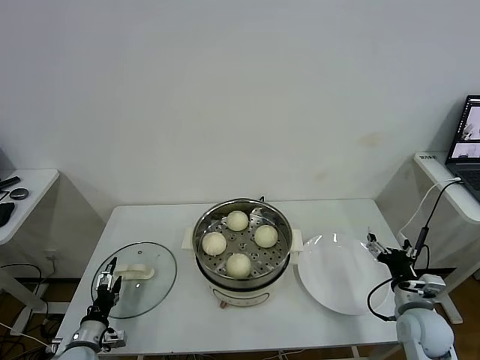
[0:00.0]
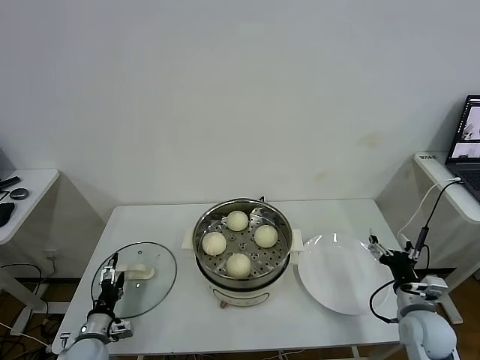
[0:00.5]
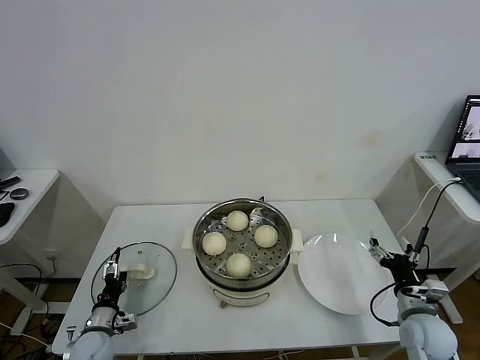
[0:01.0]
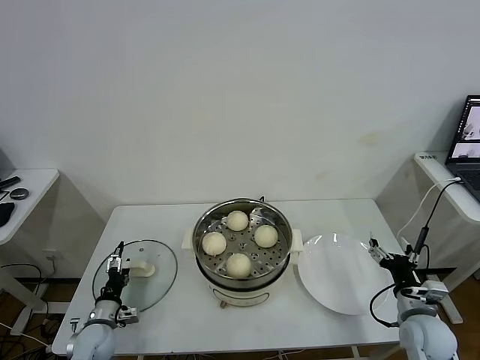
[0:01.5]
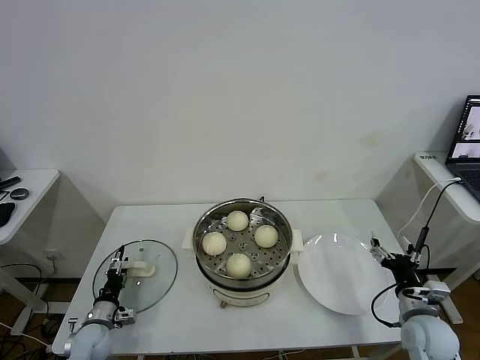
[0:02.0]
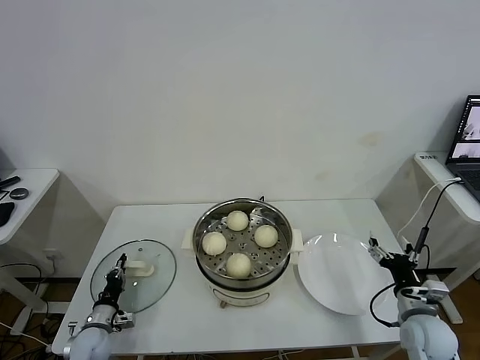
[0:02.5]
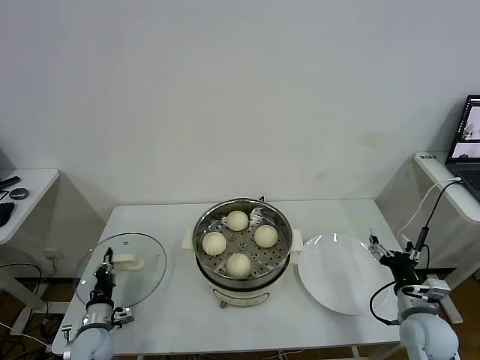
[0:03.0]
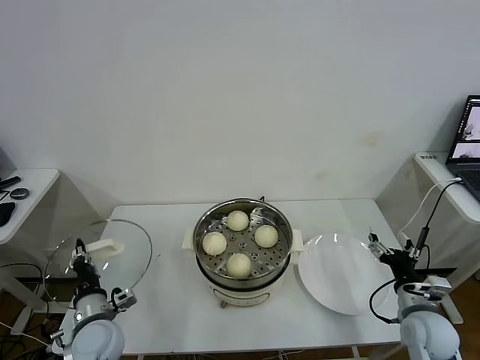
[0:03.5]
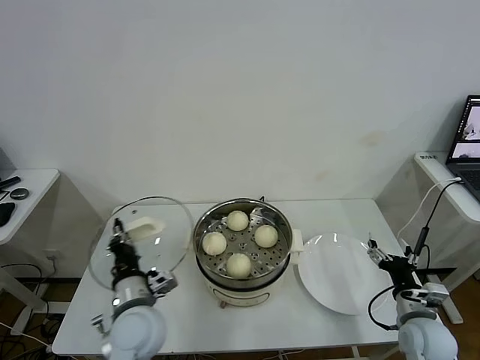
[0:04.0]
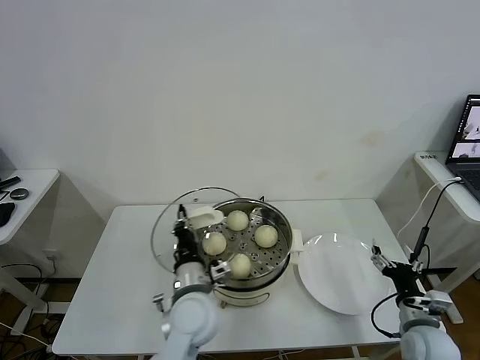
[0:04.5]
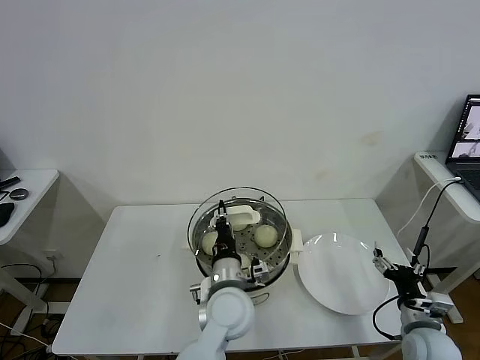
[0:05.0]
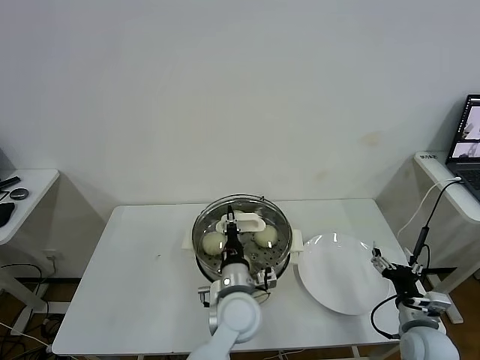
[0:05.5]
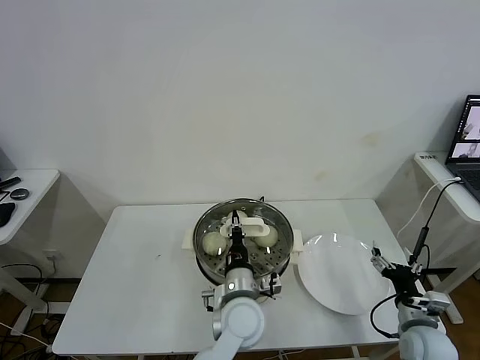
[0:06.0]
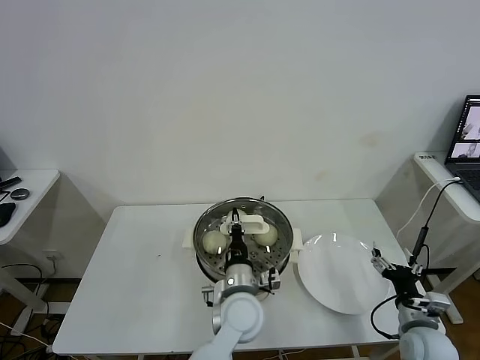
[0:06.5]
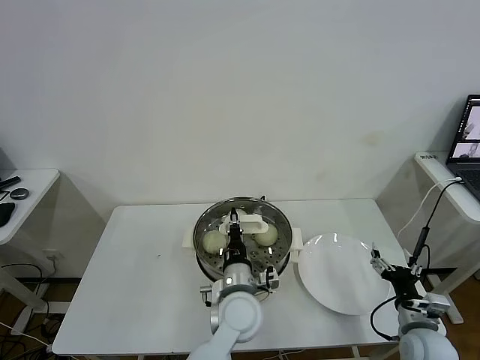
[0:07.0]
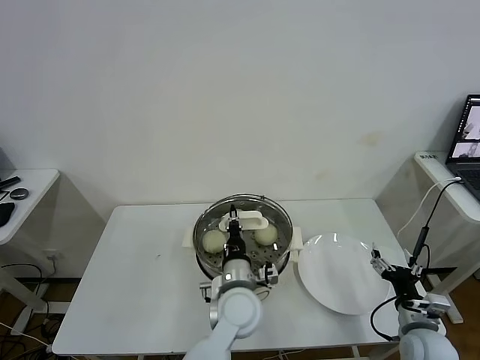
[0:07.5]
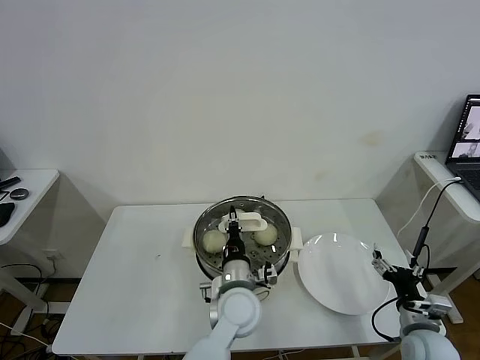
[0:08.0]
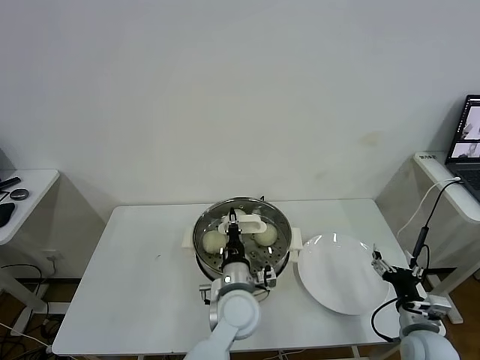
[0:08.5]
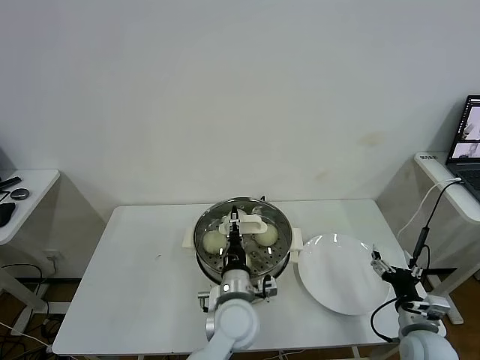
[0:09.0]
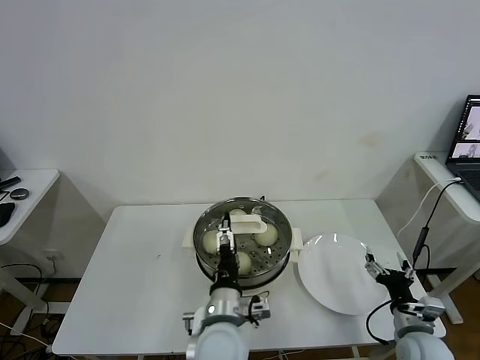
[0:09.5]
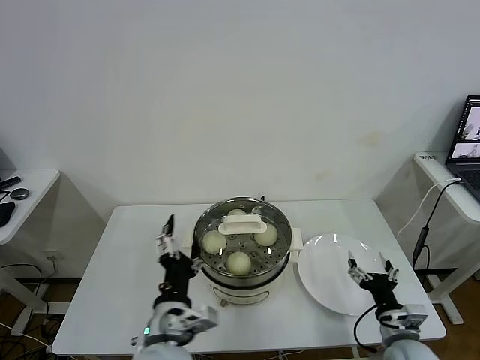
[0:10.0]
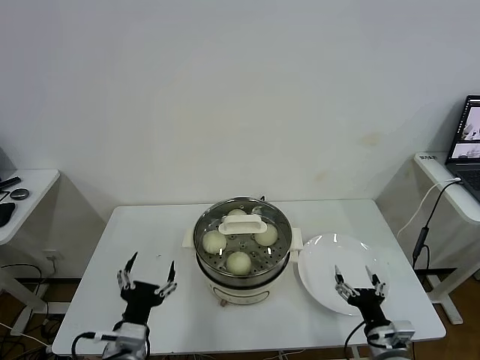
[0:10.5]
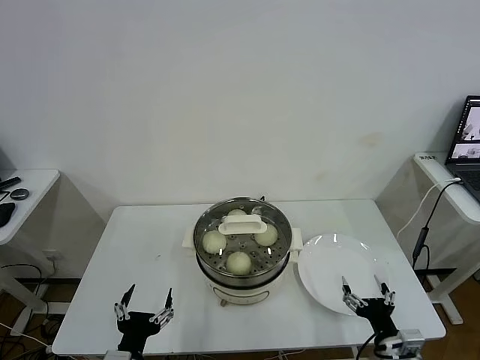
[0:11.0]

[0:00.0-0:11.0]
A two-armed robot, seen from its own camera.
Task of the whole recording: take steamed baozi put them in steamer.
Step, 0:00.0 to 0:02.5: Grasp the pot lid with left gripper.
Step, 0:03.5 to 0:09.5: Place the pot lid on the steamer with left gripper.
0:00.0 to 0:02.0: The left gripper shifts about 5 cm forward.
0:02.0 to 0:03.5: The left gripper heads upward and to the right, covering roughly 15 cm, and closes.
0:03.5 to 0:05.5: The left gripper moves to the right, about 30 cm.
0:05.5 to 0:07.5: Both grippers stay put.
0:07.5 to 0:09.0: The left gripper opens up.
0:09.0 to 0:11.0: The right gripper shifts some 10 cm backward and to the left. The left gripper heads to the left and backward, covering some 25 cm, and opens.

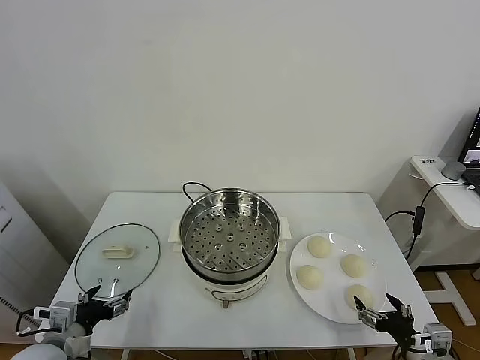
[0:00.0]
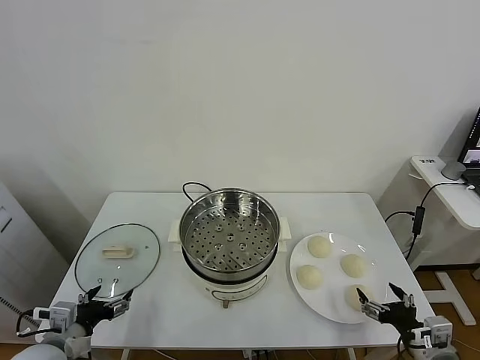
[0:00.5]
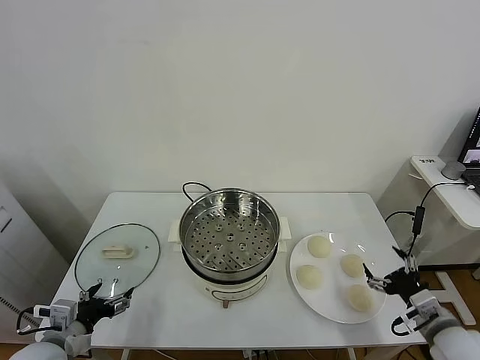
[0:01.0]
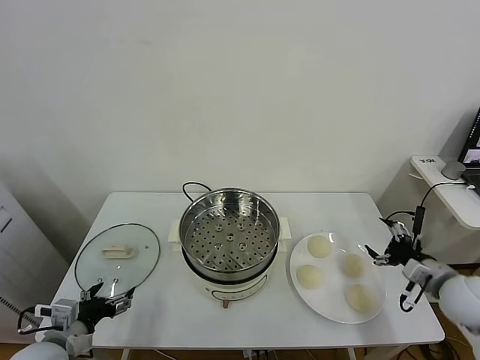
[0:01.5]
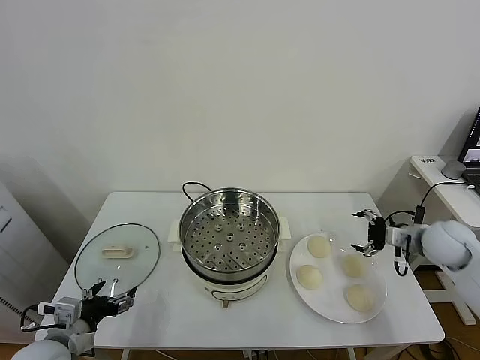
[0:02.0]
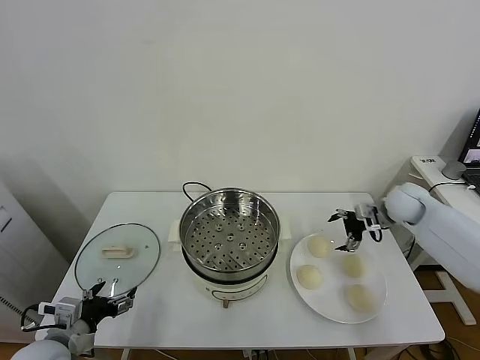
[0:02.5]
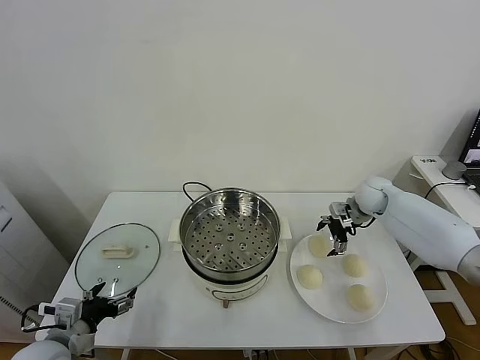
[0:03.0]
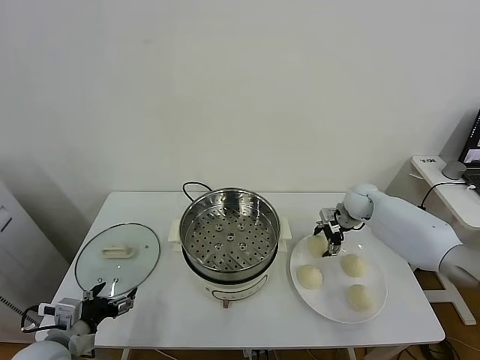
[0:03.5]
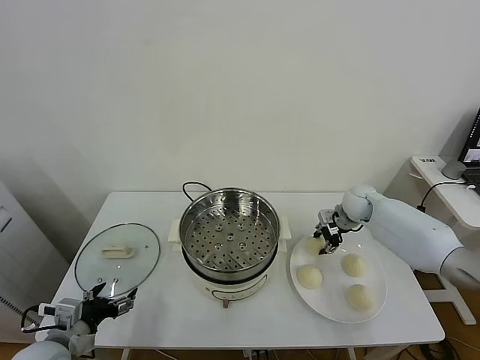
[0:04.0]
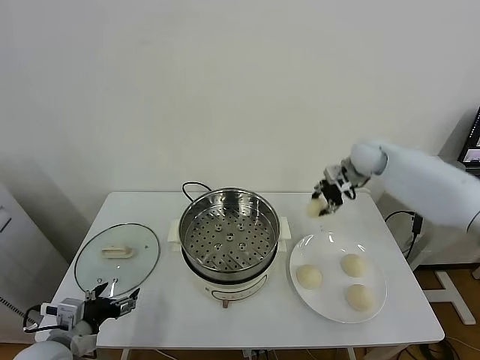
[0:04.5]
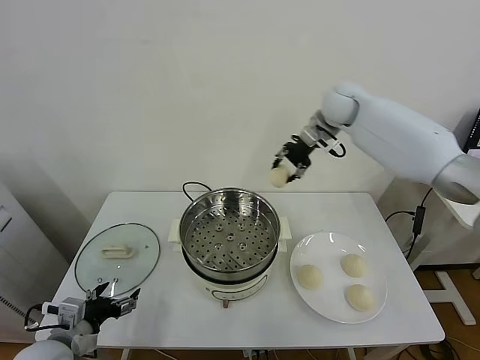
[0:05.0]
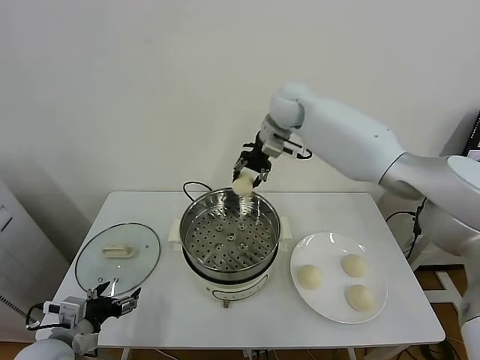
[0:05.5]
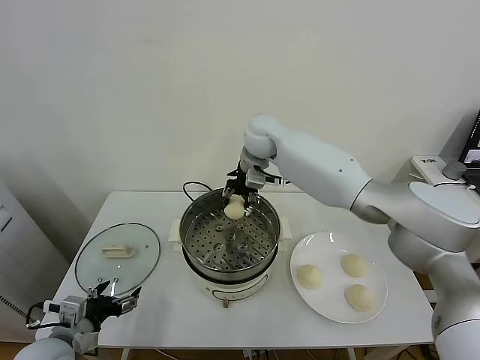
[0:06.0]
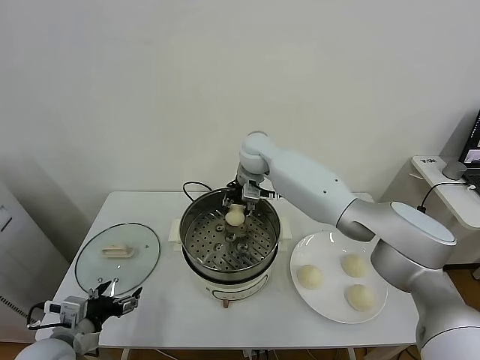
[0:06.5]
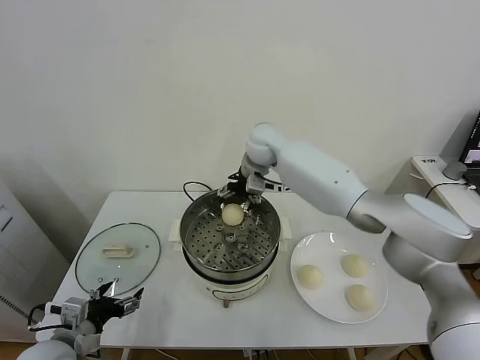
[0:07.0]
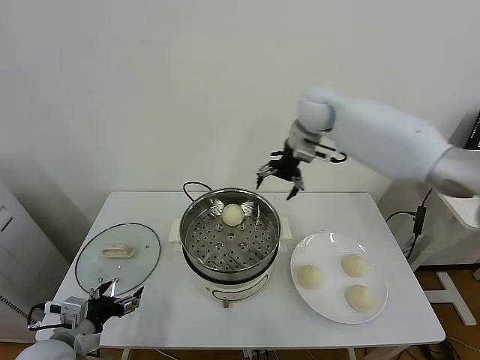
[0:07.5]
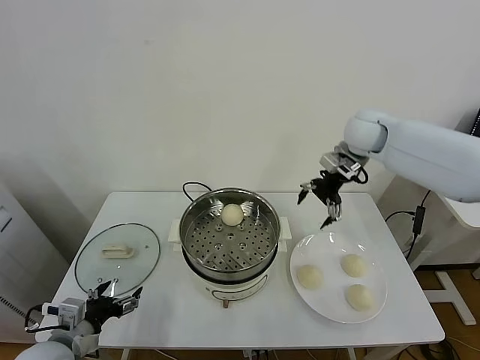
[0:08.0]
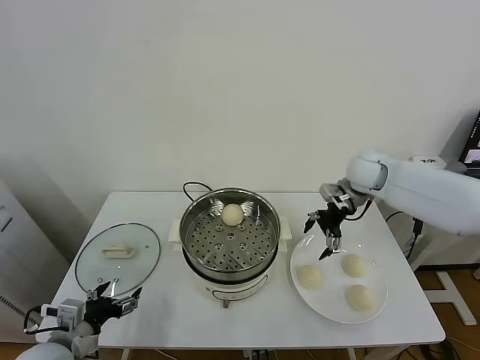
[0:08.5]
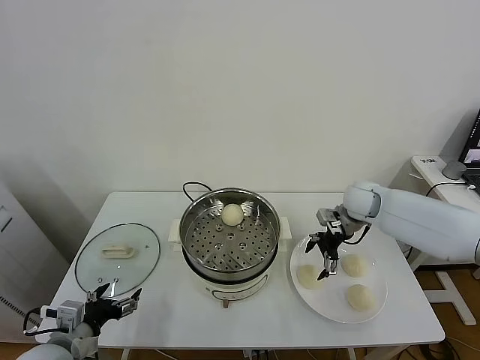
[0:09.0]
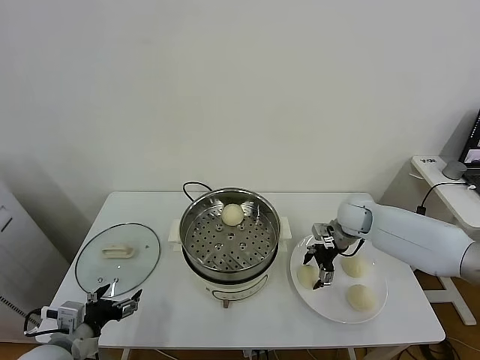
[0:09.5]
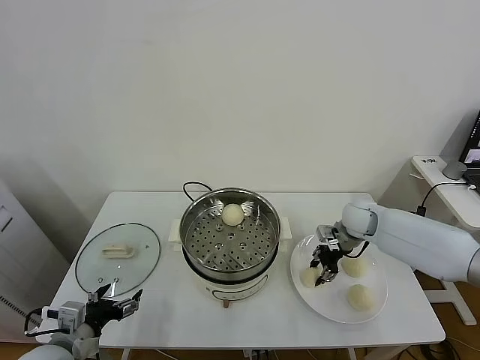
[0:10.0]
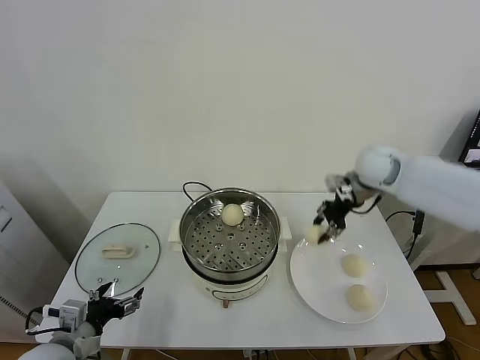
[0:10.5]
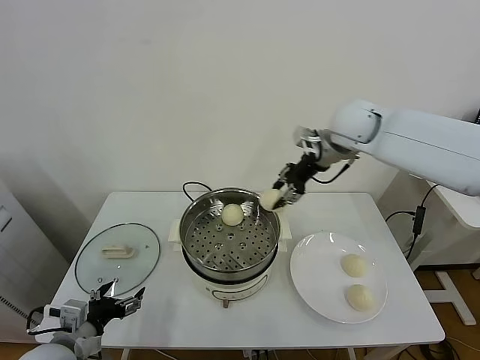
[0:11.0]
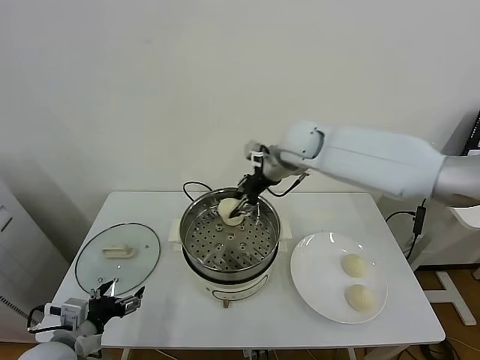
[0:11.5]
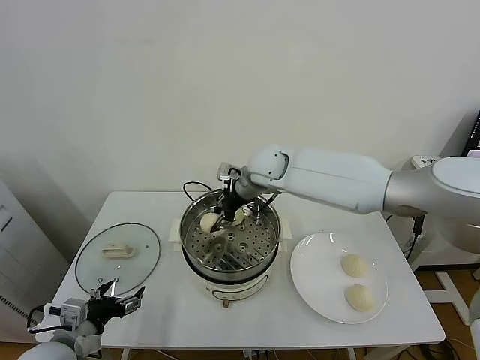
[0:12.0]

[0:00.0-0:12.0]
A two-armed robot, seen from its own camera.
Task of the whole recording: take steamed baozi put them in steamer.
Step, 0:00.0 to 0:03.5: Grasp the baozi in the plate with right gripper.
Step, 0:04.0 to 0:06.5: Place the baozi on the steamer with right gripper.
Step, 0:07.0 to 0:09.5: Grasp the baozi in the plate with right gripper.
0:02.0 to 0:04.0: The right gripper shifts about 20 cm forward and to the left, and closes.
0:04.0 to 0:06.0: The right gripper is displaced to the left and upward by roughly 35 cm.
0:06.0 to 0:08.0: The right gripper shifts about 25 cm to the right, and opens up.
0:08.0 to 0:10.0: The right gripper shifts about 20 cm downward, and closes its fingers.
0:10.0 to 0:12.0: The right gripper shifts about 30 cm to the left and upward.

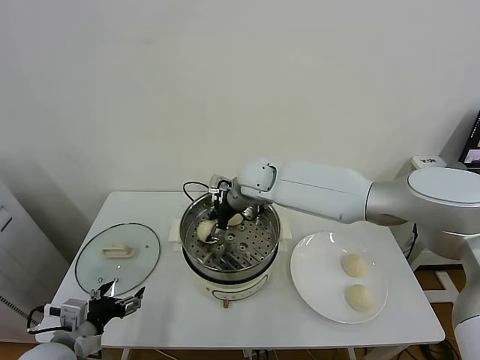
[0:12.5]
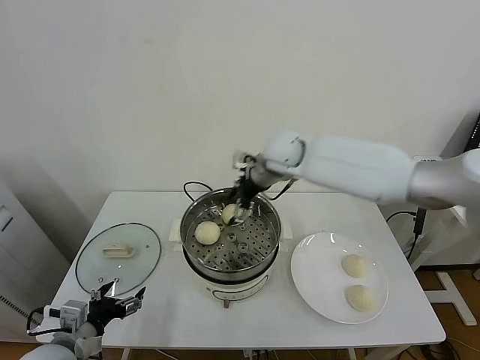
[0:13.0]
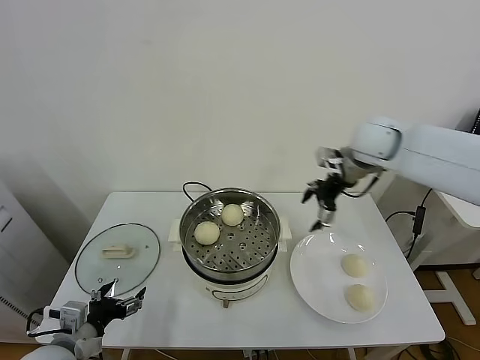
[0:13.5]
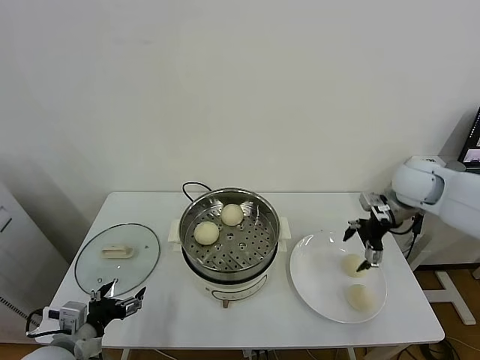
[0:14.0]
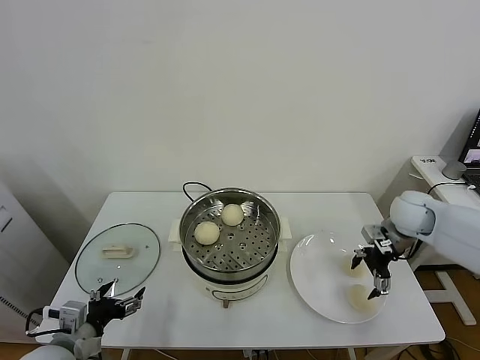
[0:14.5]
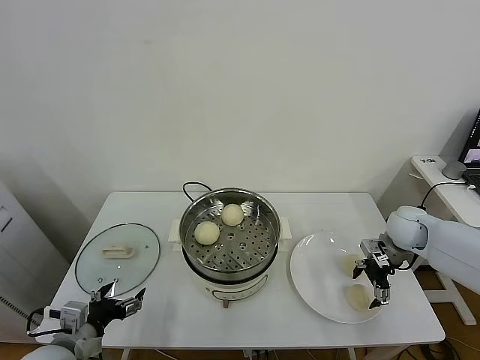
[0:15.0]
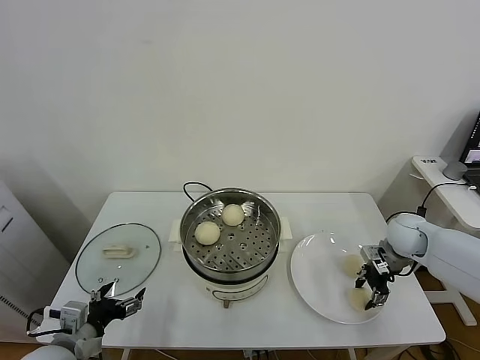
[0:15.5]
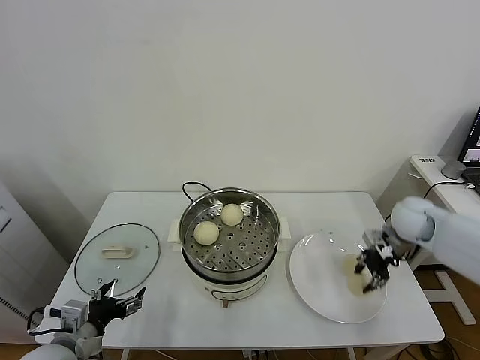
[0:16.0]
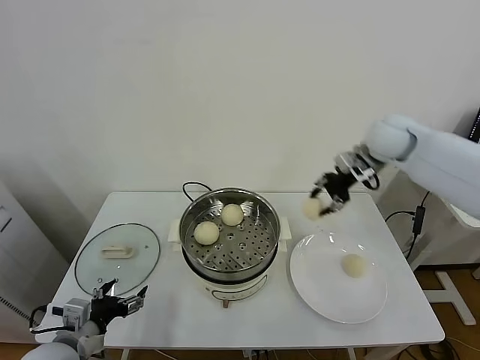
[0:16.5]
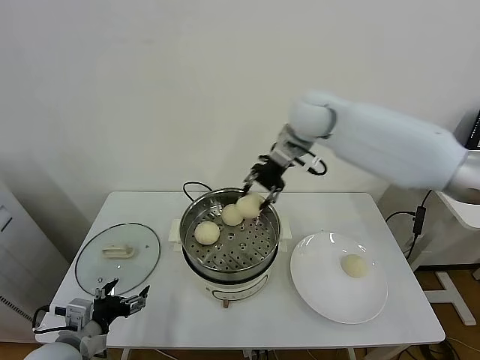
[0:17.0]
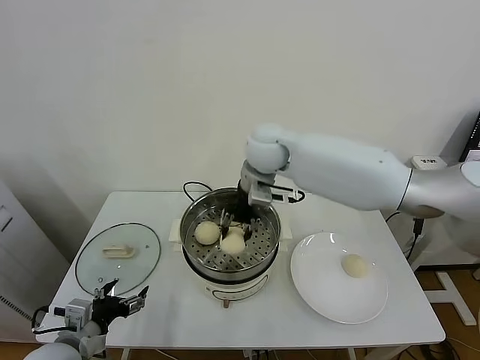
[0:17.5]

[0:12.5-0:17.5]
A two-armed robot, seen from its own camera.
Task of the whole recording: take steamed baozi put them in steamer.
Step, 0:13.0 to 0:15.5: Grasp the baozi in the plate with right gripper.
0:12.5 to 0:15.0: The right gripper is displaced to the right by approximately 35 cm, and opens.
0:15.0 to 0:17.5: The right gripper travels to the left and upward by approximately 40 cm, and closes.
